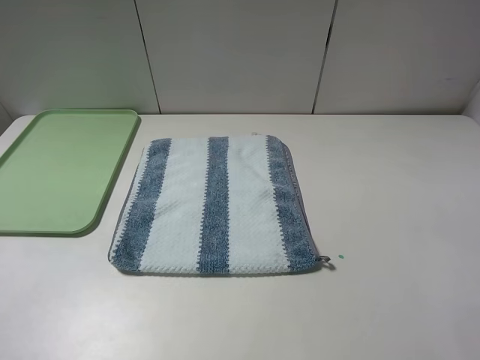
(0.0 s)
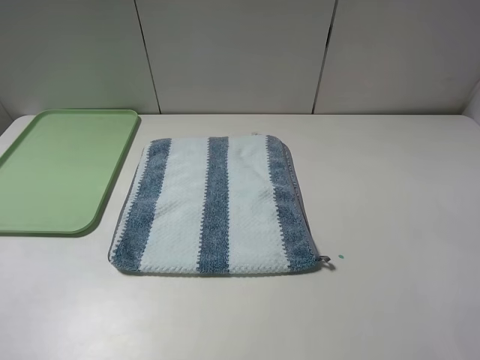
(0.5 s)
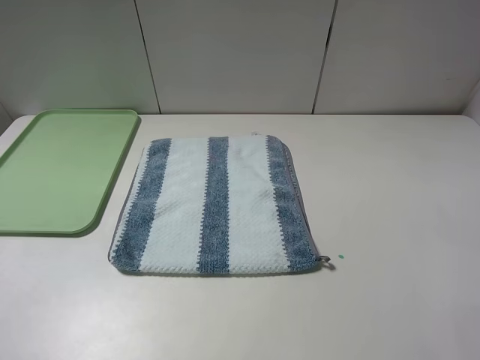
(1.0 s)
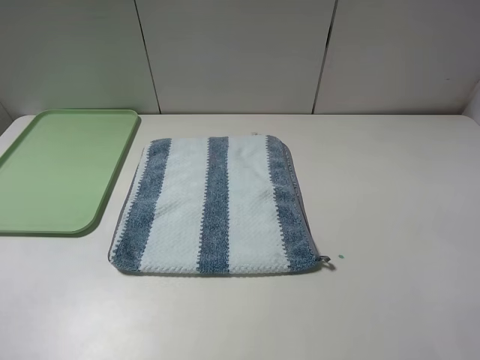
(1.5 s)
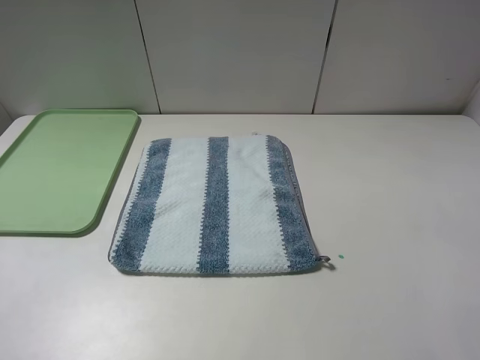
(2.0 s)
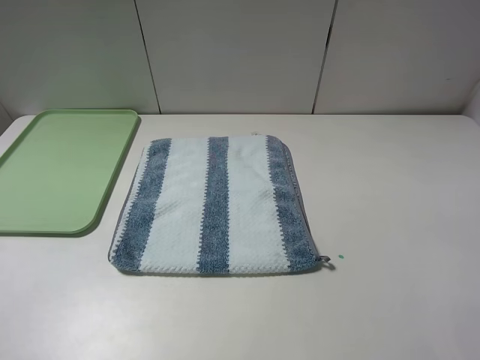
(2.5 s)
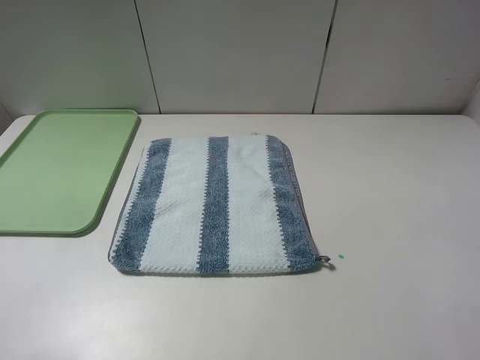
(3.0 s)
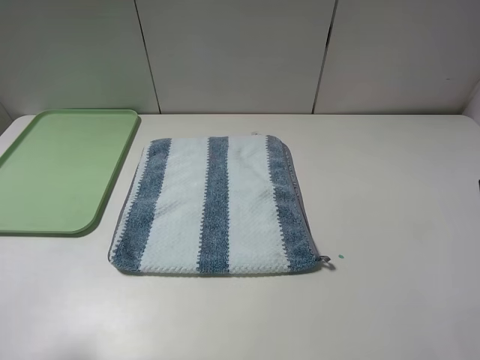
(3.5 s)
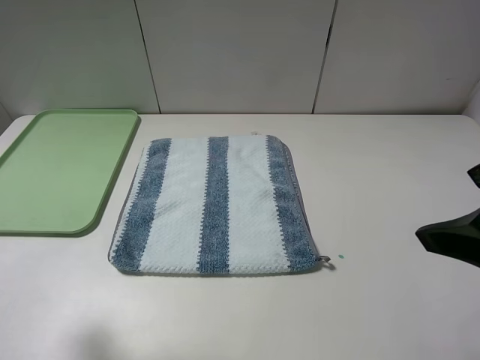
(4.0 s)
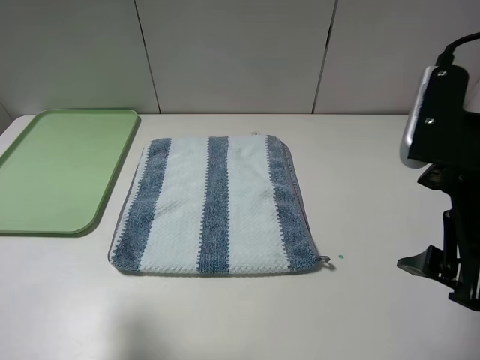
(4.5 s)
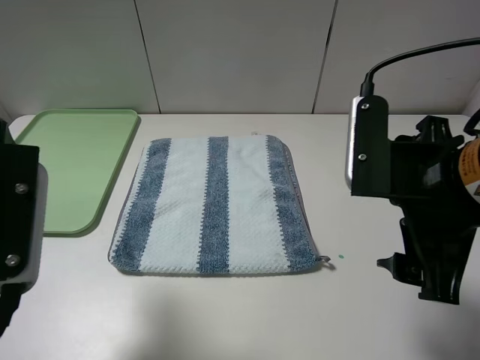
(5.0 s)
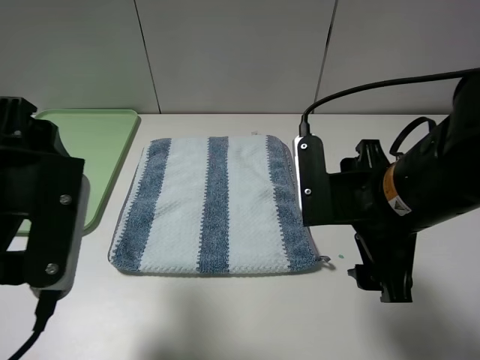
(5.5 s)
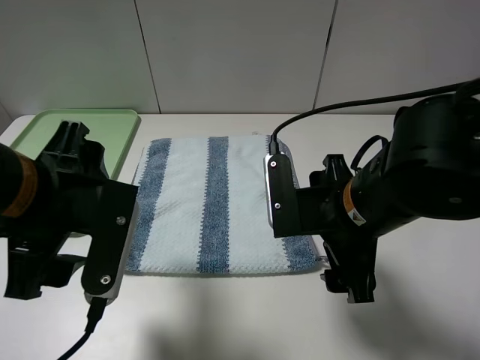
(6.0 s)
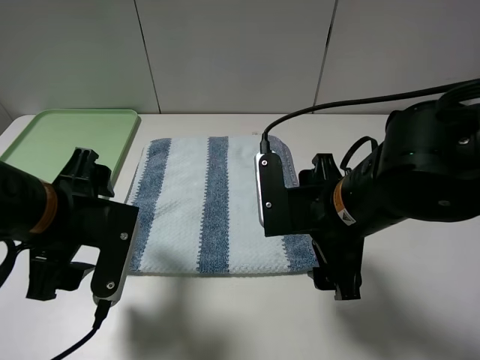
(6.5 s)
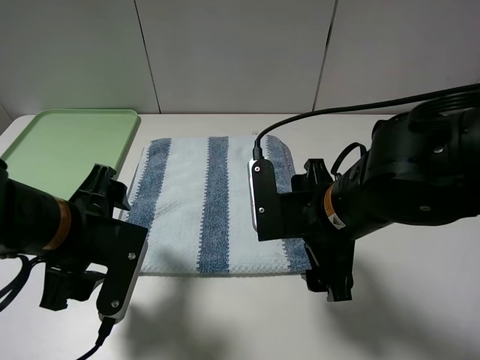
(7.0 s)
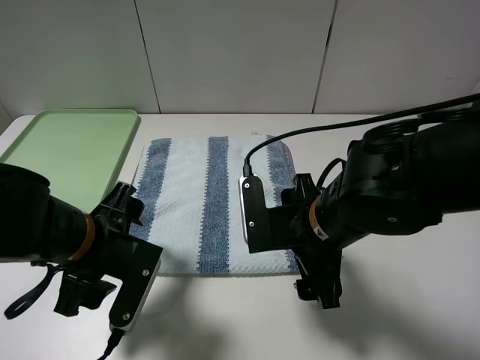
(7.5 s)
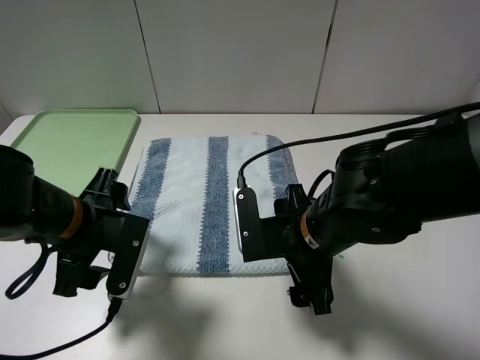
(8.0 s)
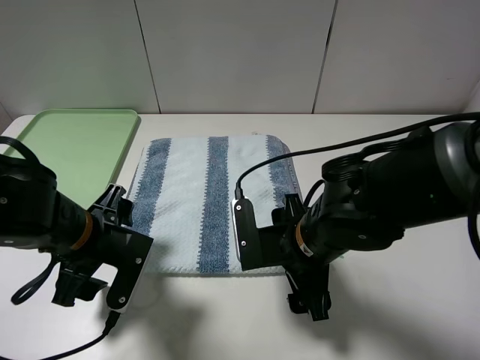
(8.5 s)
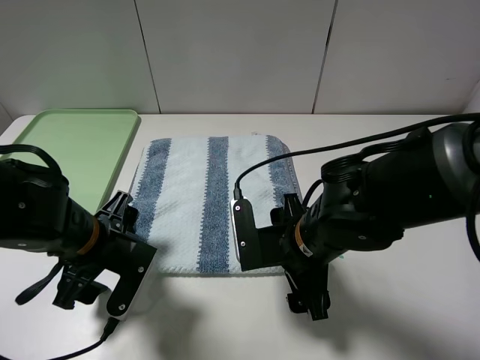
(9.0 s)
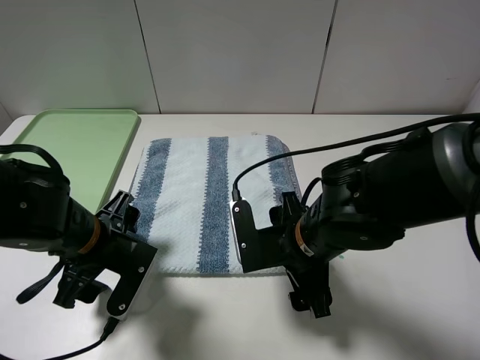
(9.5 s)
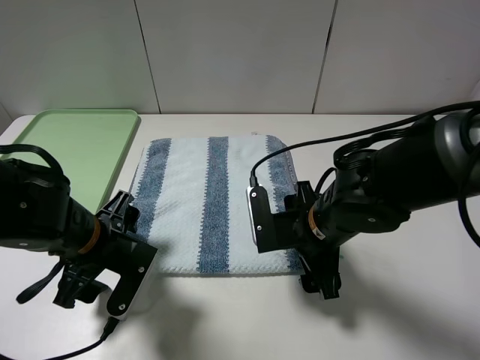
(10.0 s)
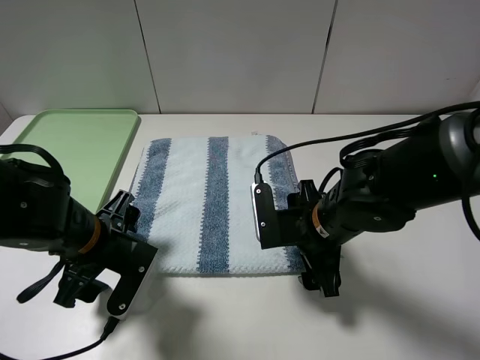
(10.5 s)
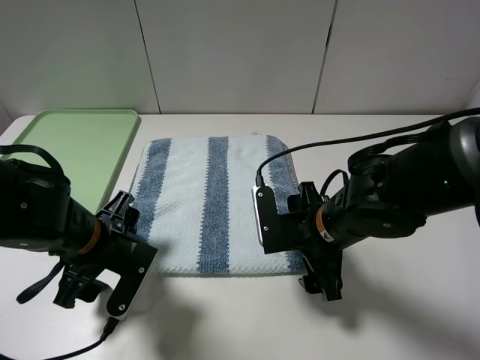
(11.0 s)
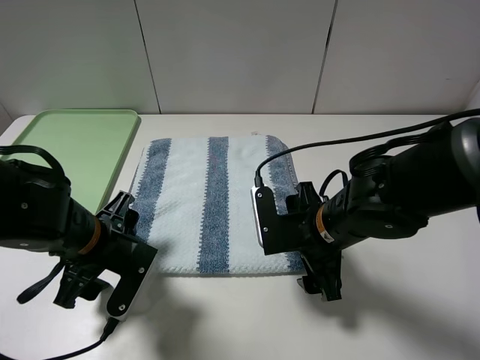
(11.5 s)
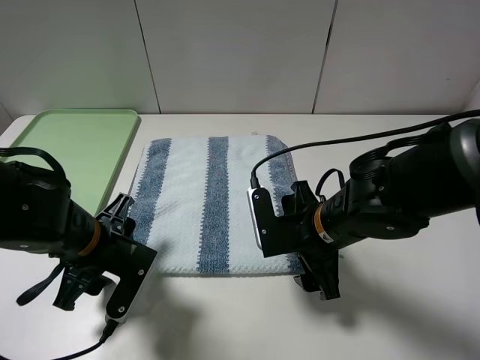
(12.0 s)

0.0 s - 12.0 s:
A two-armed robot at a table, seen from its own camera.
0.0 s - 2.0 s: Both grippers stay about where they are.
2.0 s - 4.0 s: The right gripper travels forward and to the left by approximately 10 cm. Meanwhile the left gripper moves forward, about 10 cm.
4.0 s - 6.0 s: The right gripper is displaced downward, to the left and forward by about 20 cm; the left gripper is displaced to the right and downward by approximately 15 cm.
6.0 s - 8.0 s: The right gripper travels downward by approximately 5 cm. Meanwhile the left gripper goes about 10 cm downward.
10.0 s - 12.0 s: The grippers stay close to where they were, moving slightly.

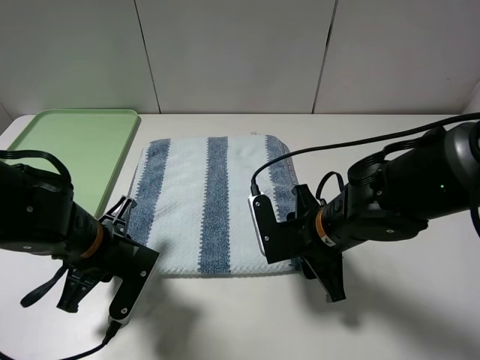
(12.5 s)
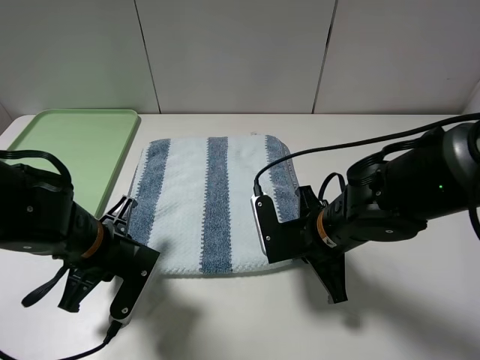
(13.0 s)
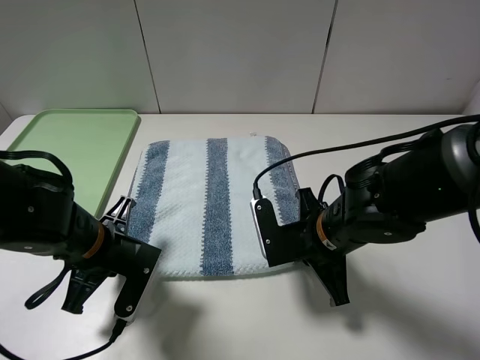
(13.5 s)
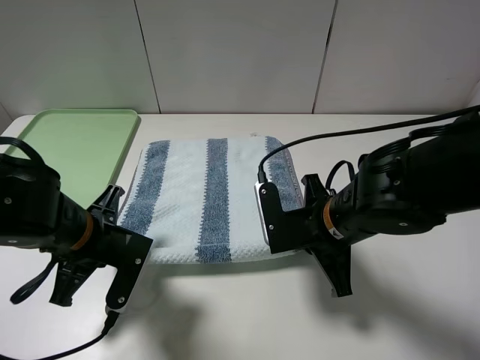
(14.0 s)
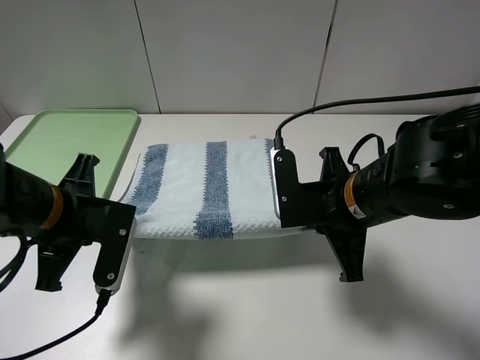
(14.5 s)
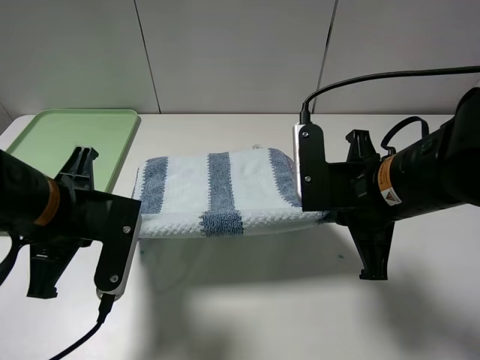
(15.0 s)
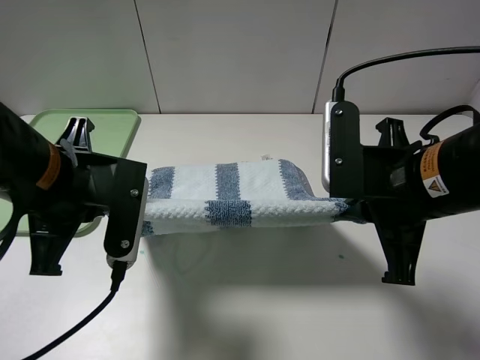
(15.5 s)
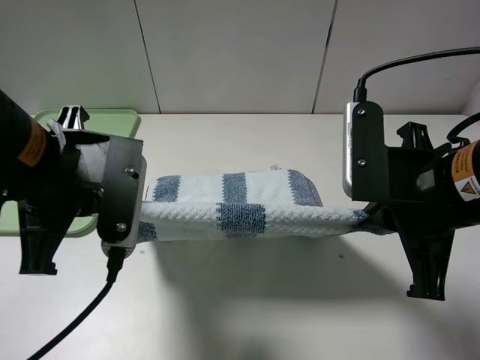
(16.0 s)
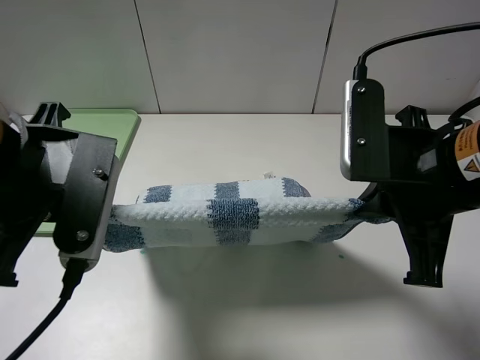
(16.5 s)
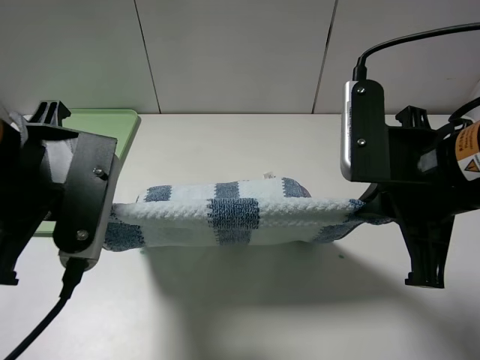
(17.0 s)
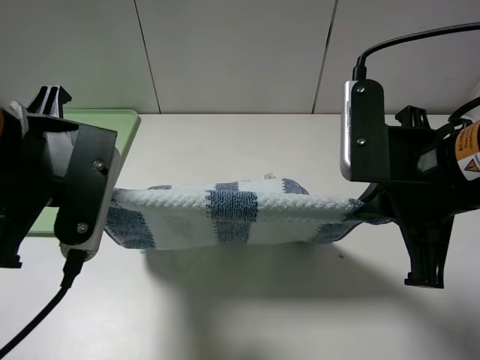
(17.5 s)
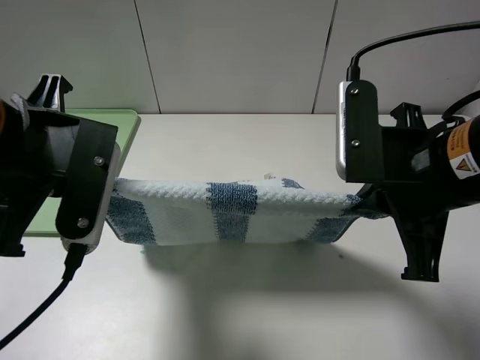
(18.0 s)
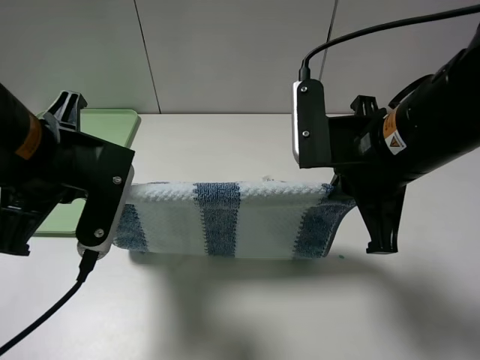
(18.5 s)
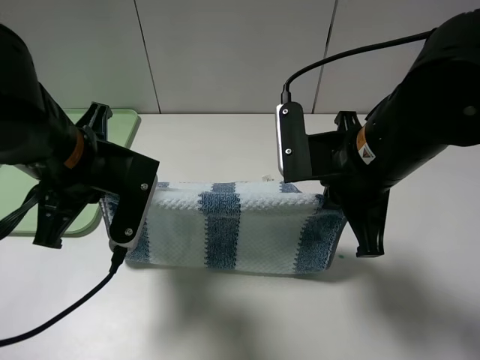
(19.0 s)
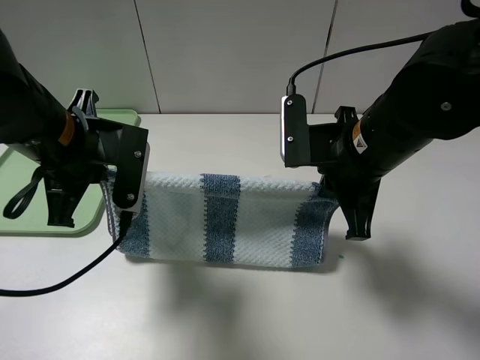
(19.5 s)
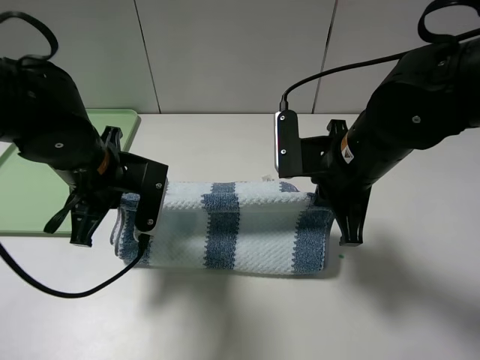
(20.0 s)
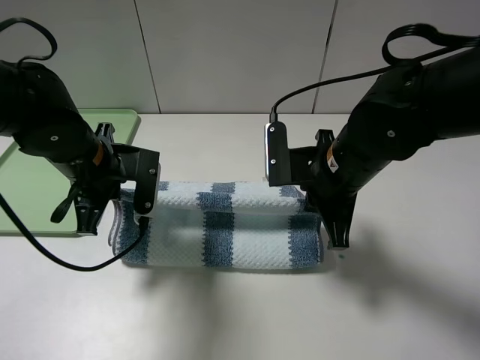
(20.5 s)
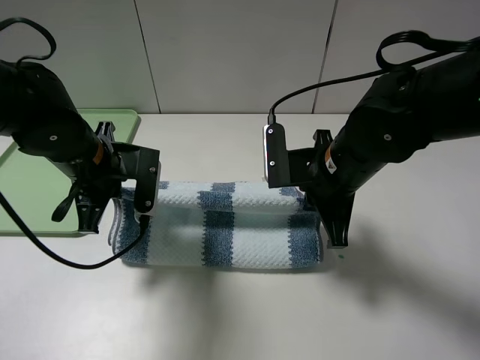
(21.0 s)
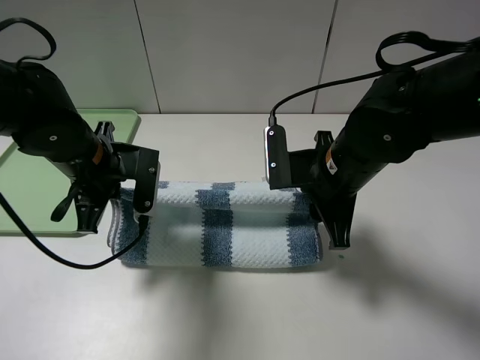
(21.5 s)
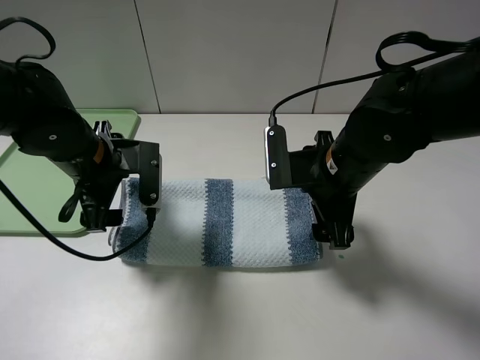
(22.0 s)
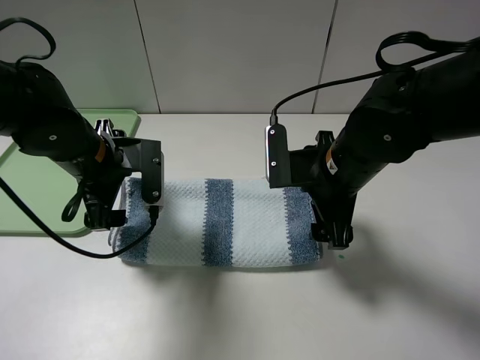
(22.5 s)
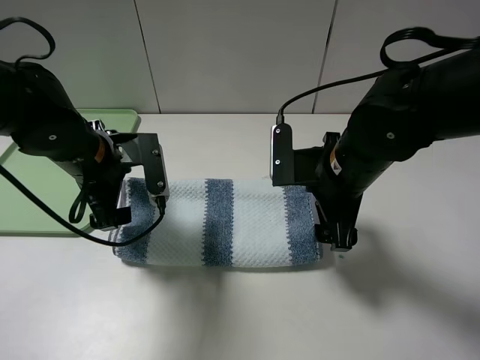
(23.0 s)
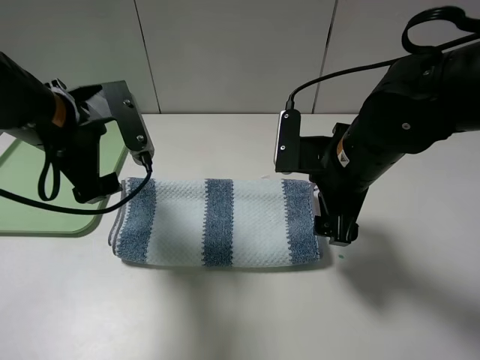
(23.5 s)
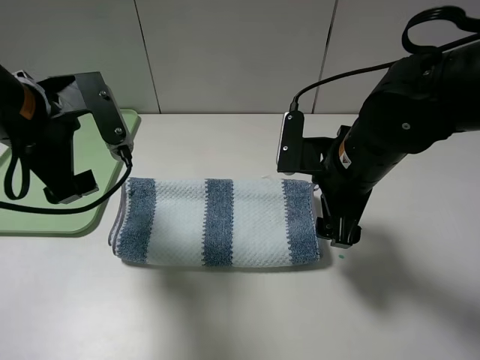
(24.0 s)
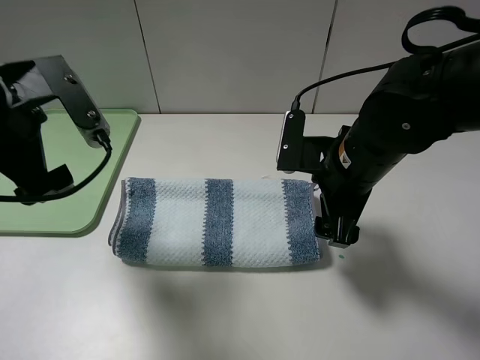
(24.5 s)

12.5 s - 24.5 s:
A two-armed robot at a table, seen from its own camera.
Step, 14.0 s - 22.5 s: Fold the blue white towel upwards with the left gripper.
12.5 s - 14.5 s: Both grippers travel together upward, some 5 cm. The right gripper closes.
14.5 s - 16.5 s: The grippers both shift upward by approximately 10 cm.
16.5 s - 18.5 s: The right gripper changes place by approximately 5 cm.
18.5 s - 20.5 s: The two grippers go some 10 cm downward and forward.
20.5 s - 22.5 s: The left gripper opens. Meanwhile the right gripper opens its fingers.
22.5 s - 24.5 s: The left gripper heads upward, backward and to the left, covering roughly 15 cm.

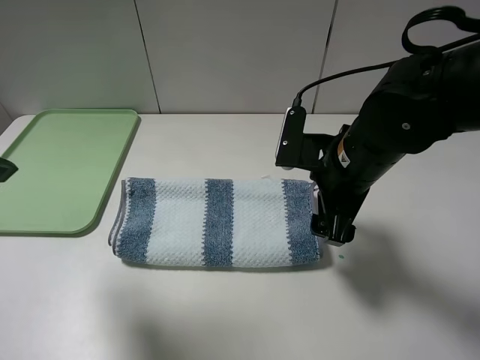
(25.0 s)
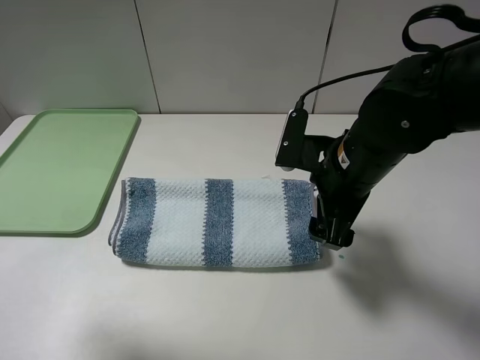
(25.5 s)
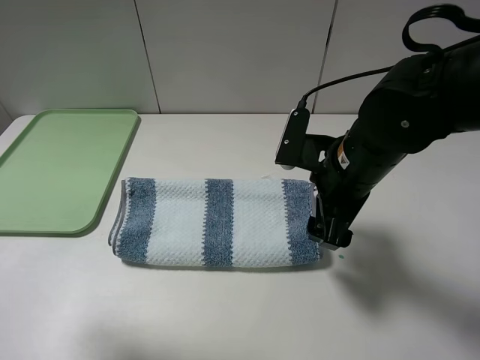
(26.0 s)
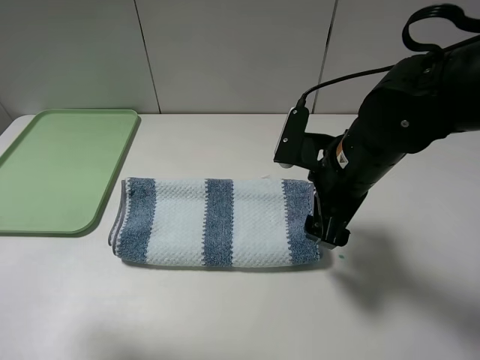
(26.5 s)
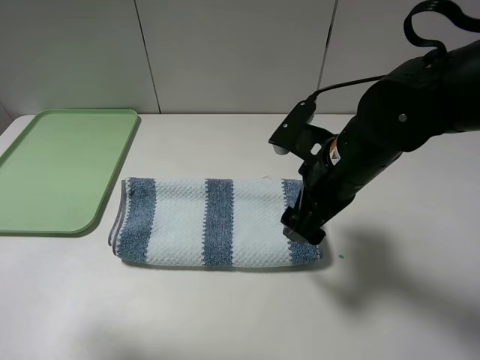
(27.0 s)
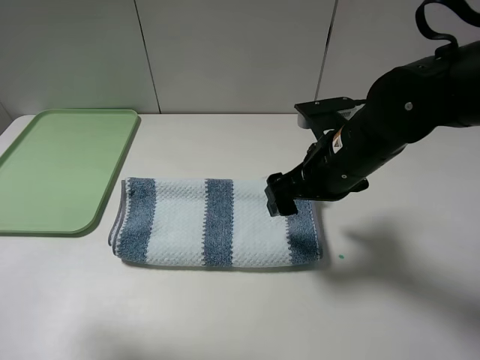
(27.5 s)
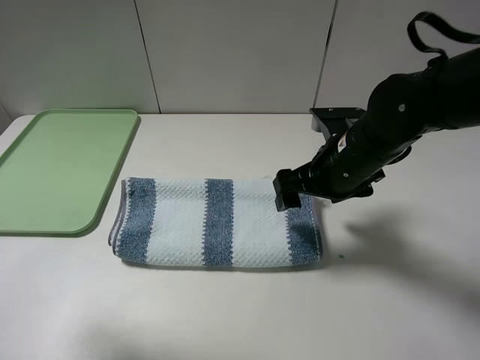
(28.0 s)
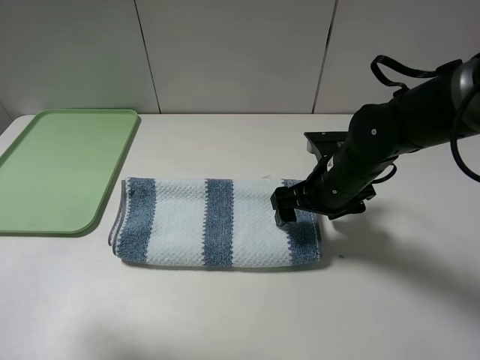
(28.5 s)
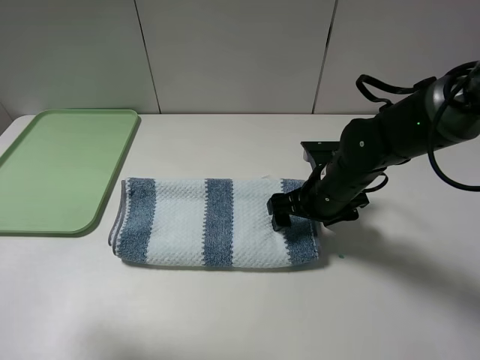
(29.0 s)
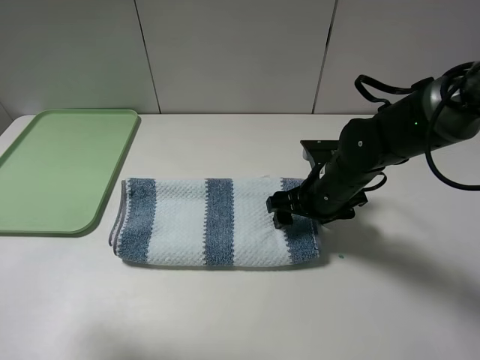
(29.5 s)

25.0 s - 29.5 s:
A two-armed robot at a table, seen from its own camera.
27.0 s - 29.5 s: The right gripper shifts approximately 10 cm downward.
